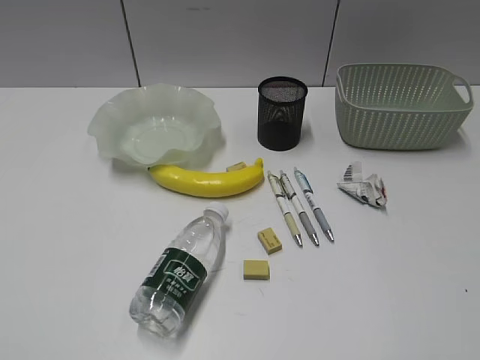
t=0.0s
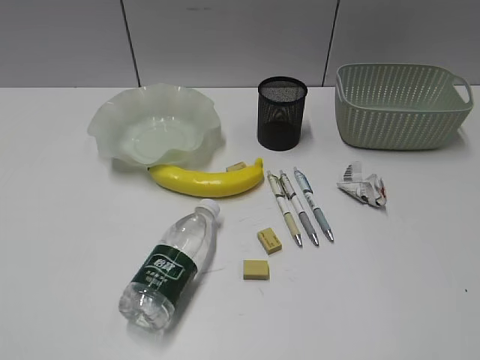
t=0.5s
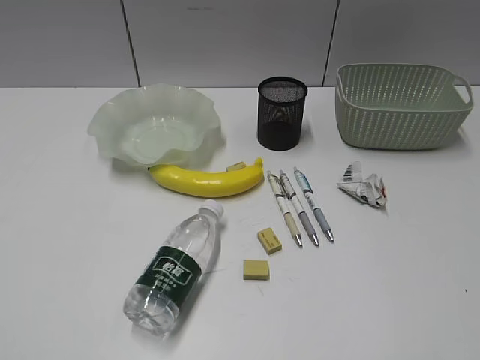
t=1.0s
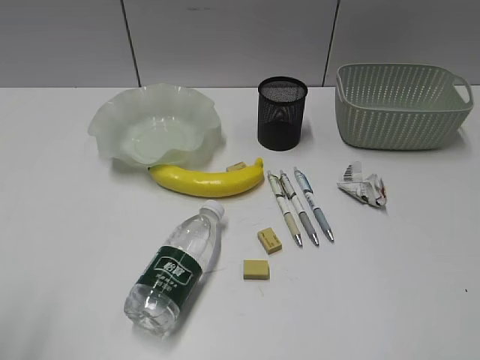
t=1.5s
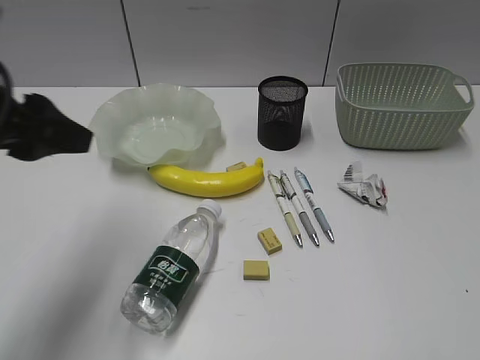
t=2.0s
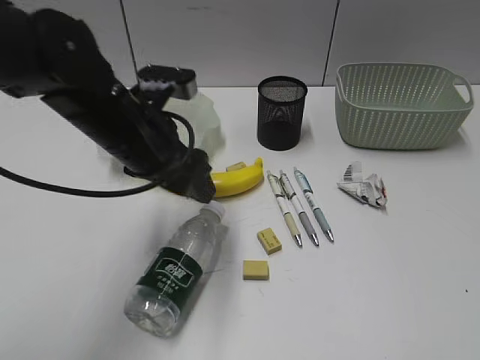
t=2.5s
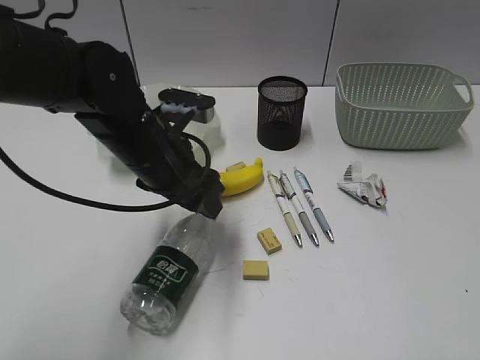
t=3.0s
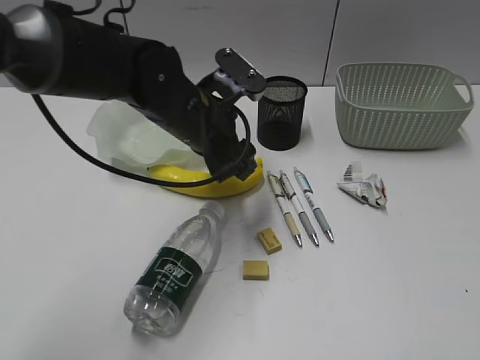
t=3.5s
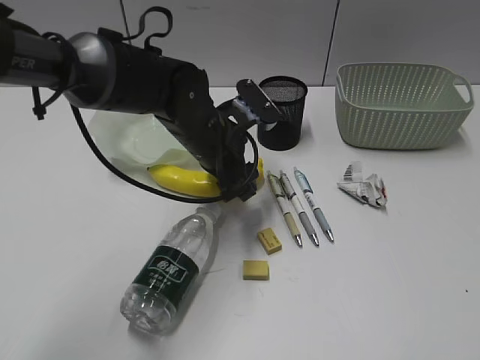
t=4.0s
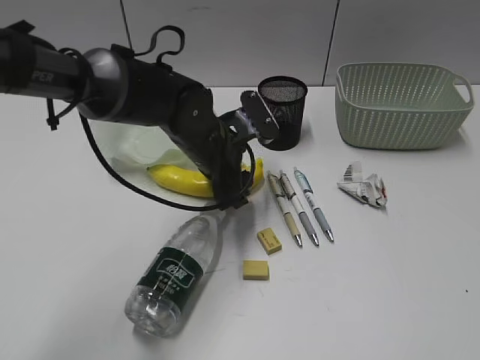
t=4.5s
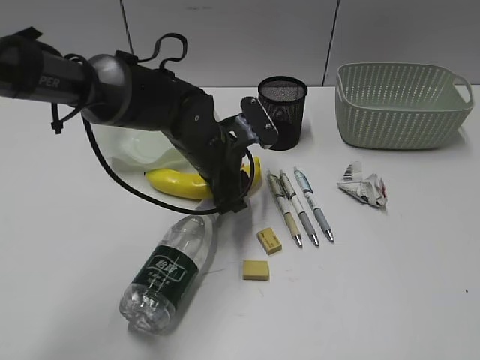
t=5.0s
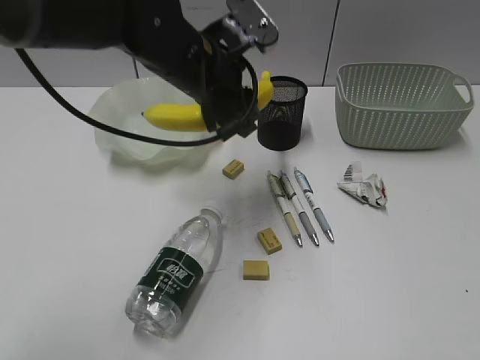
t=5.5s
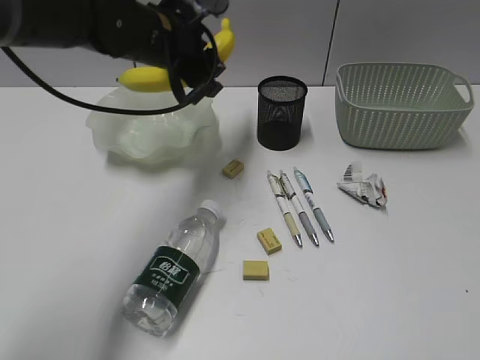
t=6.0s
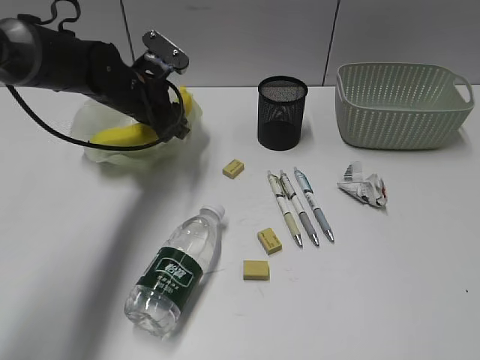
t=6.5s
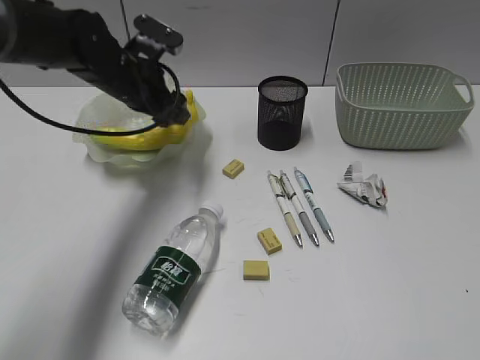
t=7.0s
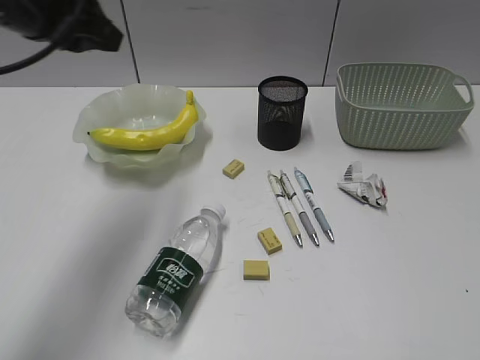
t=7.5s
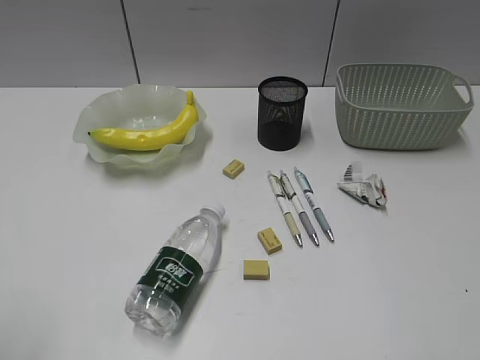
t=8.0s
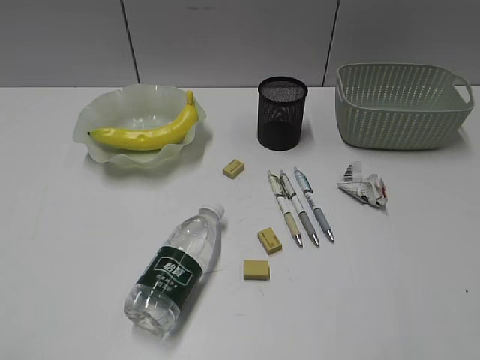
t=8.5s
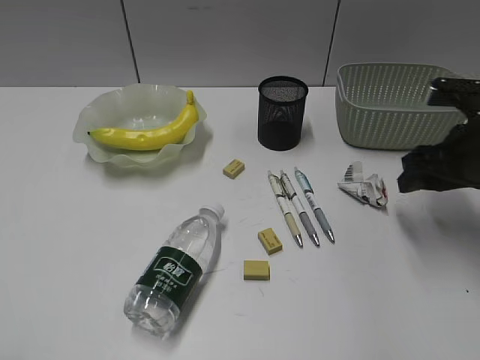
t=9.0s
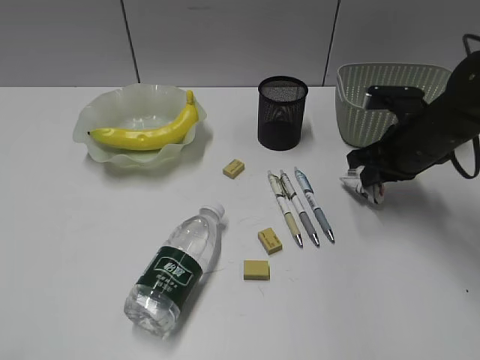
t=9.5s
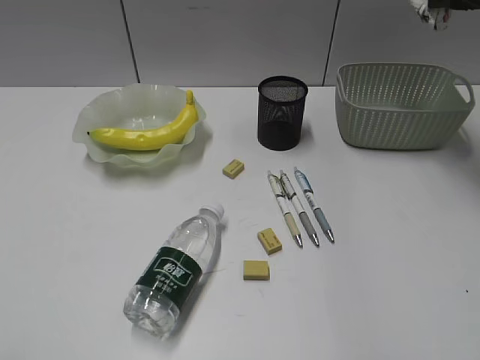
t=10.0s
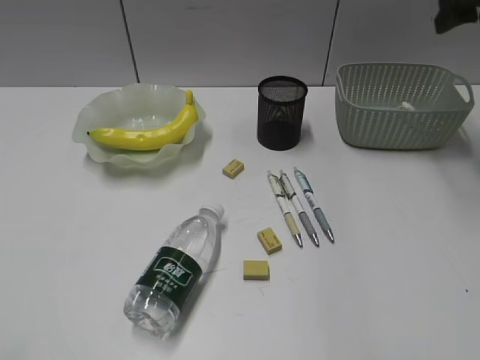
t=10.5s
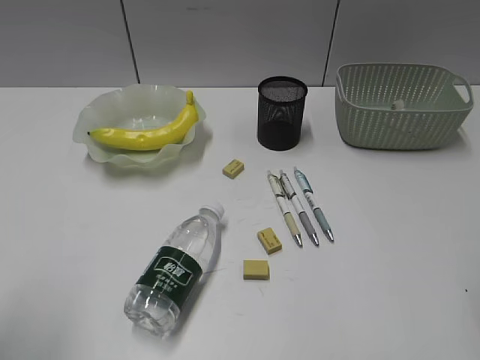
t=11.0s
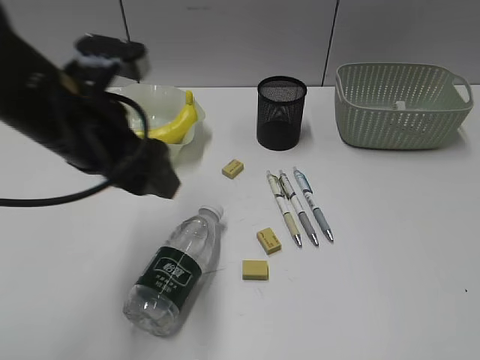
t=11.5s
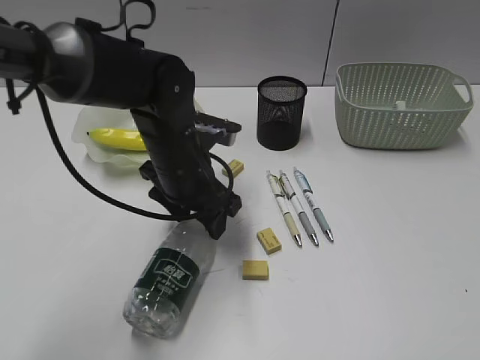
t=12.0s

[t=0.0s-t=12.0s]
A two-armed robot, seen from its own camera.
Step, t=1.5s to t=4.5s: Grasp the banana with left gripper.
Step, t=5.0s to t=7.0s: Place the banana in the plate with left gripper.
Step, t=7.5s to t=9.5s: Grasp the waste paper with right gripper.
t=2.0s to t=4.0s: The left gripper shifts approximately 25 cm to the right, downward and forward.
t=4.0s to t=6.0s: The left gripper is displaced upward by about 10 cm.
t=6.0s to t=8.0s: The left gripper is displaced backward and to the left by roughly 40 cm, and opens, then closes again.
t=8.0s to t=10.0s: The right gripper travels forward by about 40 cm, and closes up.
t=10.0s to t=12.0s: The left gripper shifts approximately 40 cm forward, to the right and downward, and opens up. The right gripper goes approximately 40 cm backward, and opens.

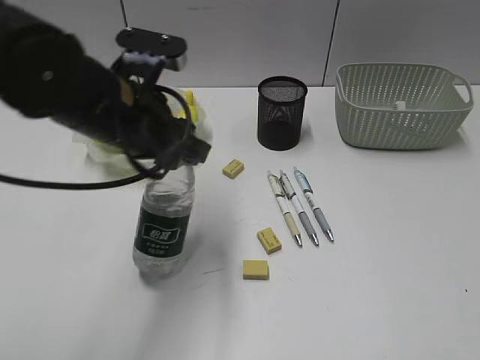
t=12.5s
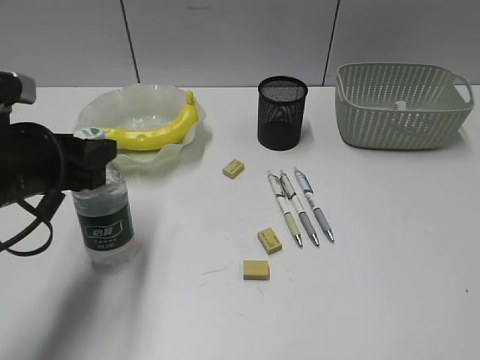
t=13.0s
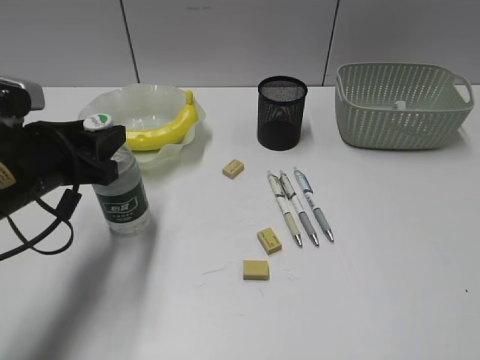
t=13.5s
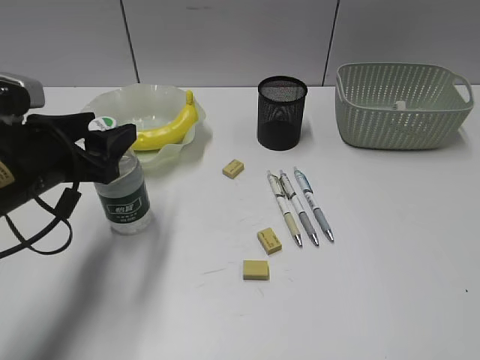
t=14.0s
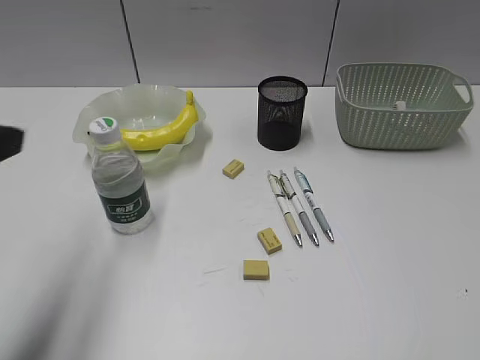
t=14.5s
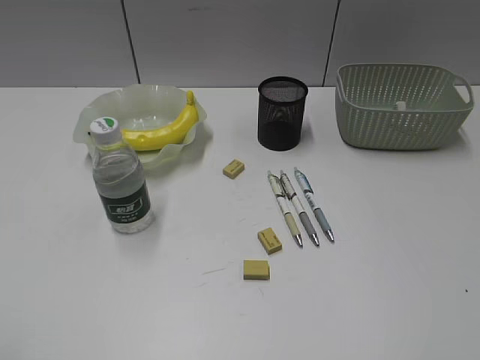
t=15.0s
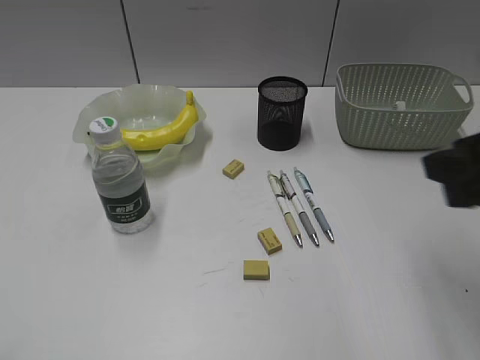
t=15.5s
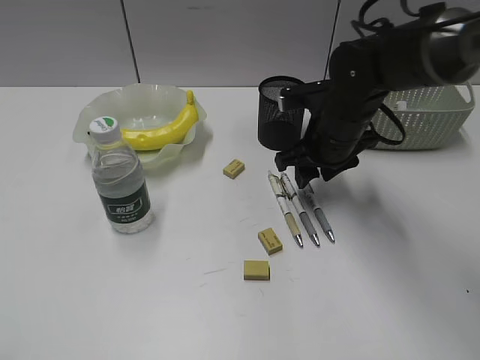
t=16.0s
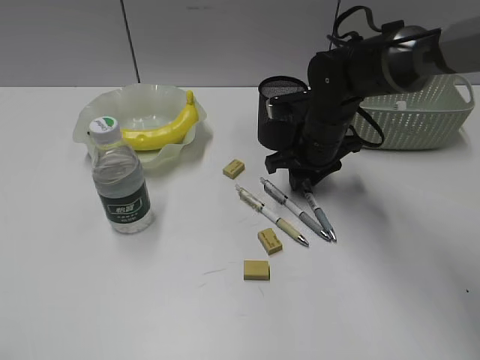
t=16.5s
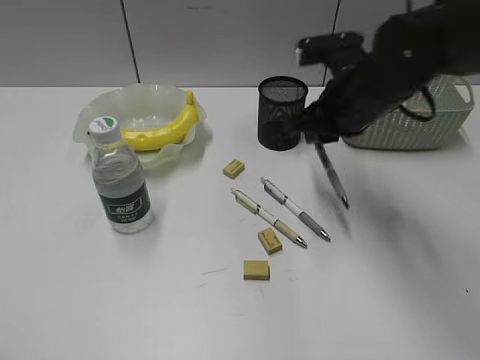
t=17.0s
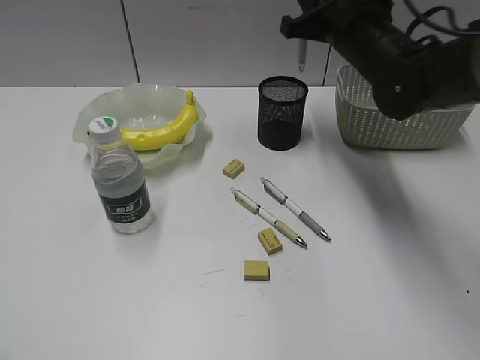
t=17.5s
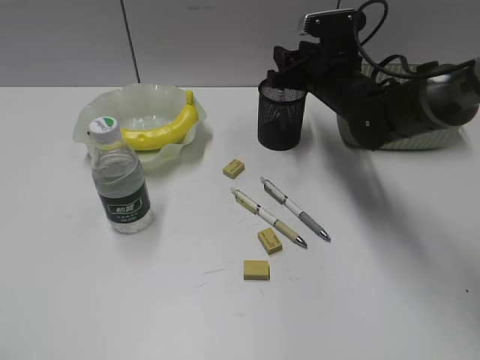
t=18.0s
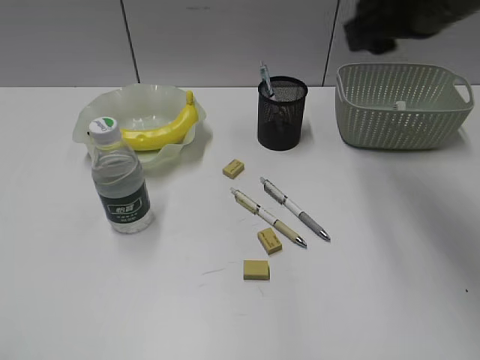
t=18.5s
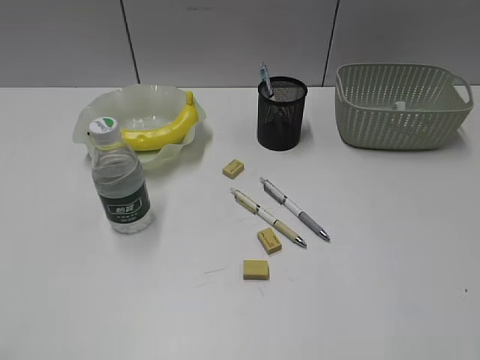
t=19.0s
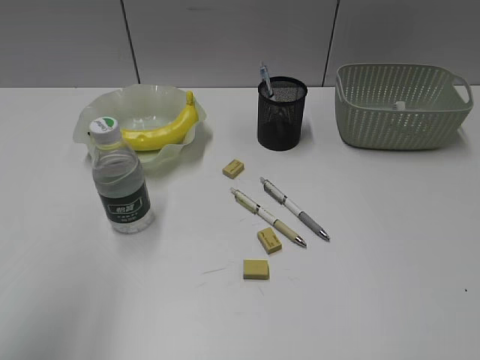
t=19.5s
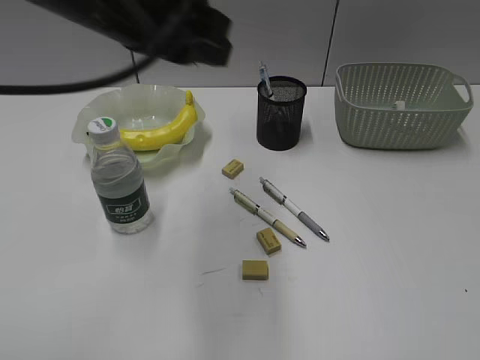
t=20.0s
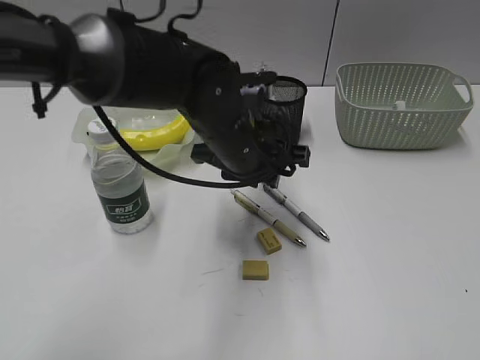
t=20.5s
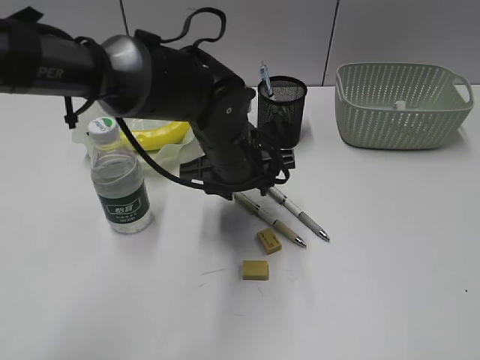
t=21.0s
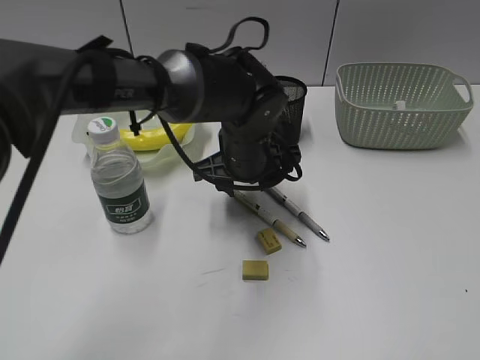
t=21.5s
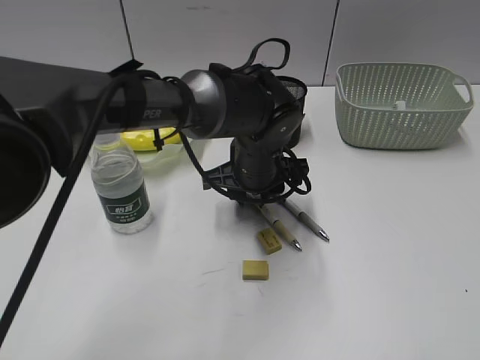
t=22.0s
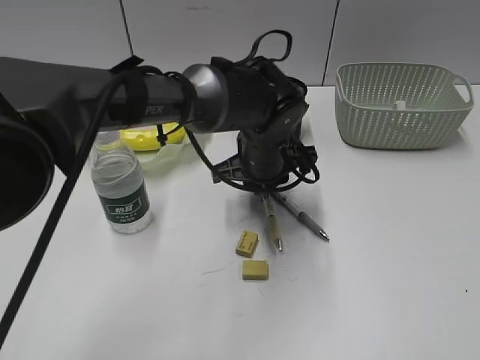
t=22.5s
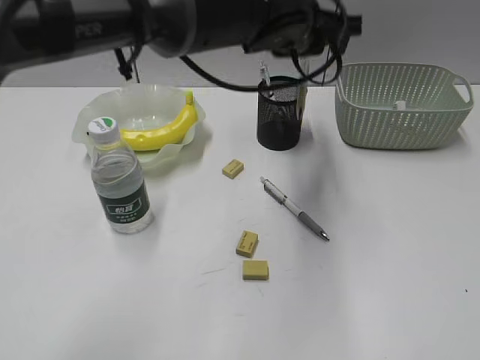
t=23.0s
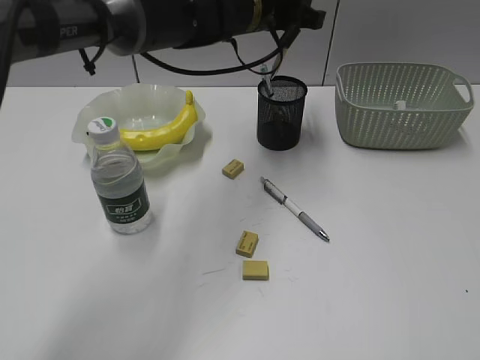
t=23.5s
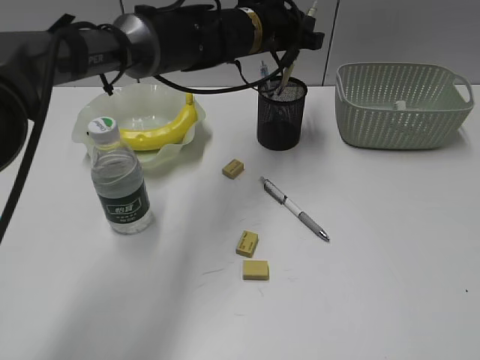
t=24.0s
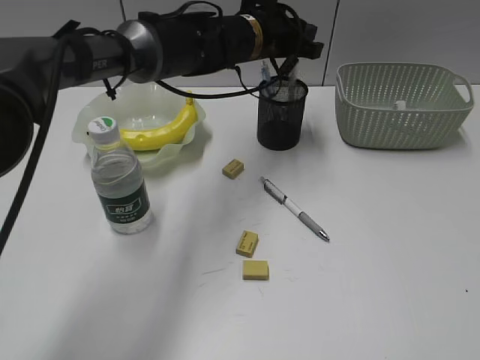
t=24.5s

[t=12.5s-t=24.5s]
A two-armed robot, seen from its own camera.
Step, t=12.5s to t=14.0s: Stand the bottle with left gripper.
Step, t=14.5s to t=16.5s: Grasp the blue pen with right gripper.
Step, t=17.0s to t=18.0s: Place the blue pen in pen holder with right gripper.
Step, t=18.5s to t=22.0s: Grasp the yellow pen with left gripper.
t=12.5s to t=14.5s: The left gripper heads to the left and backward, covering some 20 cm.
t=14.5s to t=16.5s: The right gripper travels forward, to the left and downward by about 50 cm. The left gripper moves backward and to the left, some 20 cm.
t=16.5s to t=18.5s: The right gripper goes up and down, approximately 20 cm each way, reversing 2 times, and opens.
t=18.5s to t=20.5s: The left gripper is displaced to the right and forward by roughly 50 cm, while the right gripper is displaced backward and to the right by approximately 35 cm, and closes up.
t=20.5s to t=22.5s: The left gripper heads downward, covering about 5 cm, and opens, then closes again.
t=22.5s to t=24.5s: The left gripper travels forward and upward by roughly 15 cm.

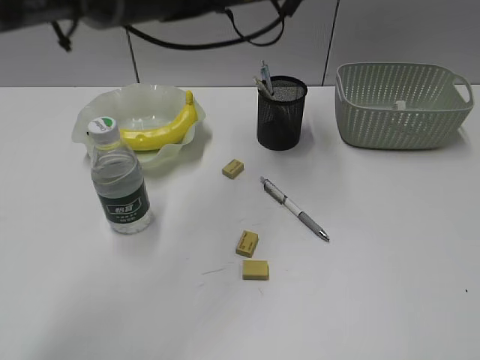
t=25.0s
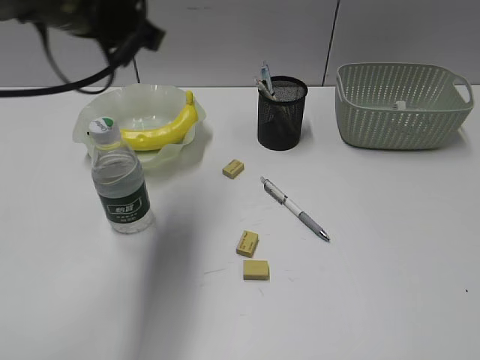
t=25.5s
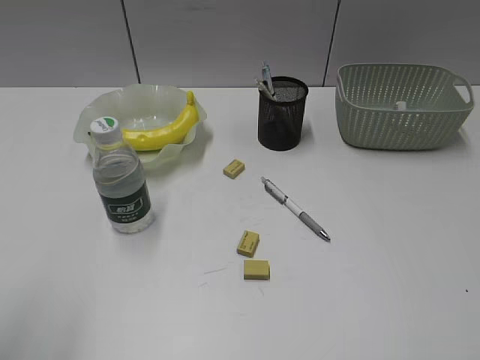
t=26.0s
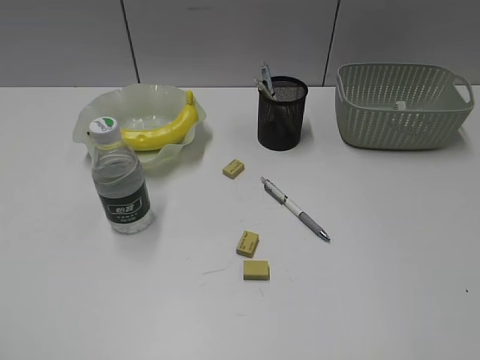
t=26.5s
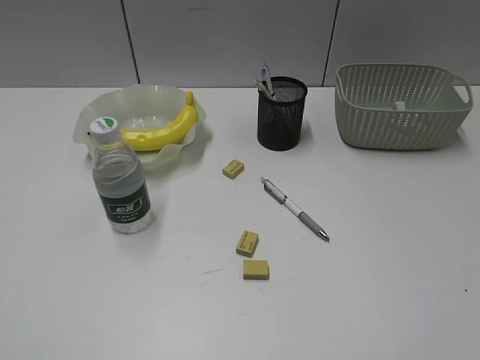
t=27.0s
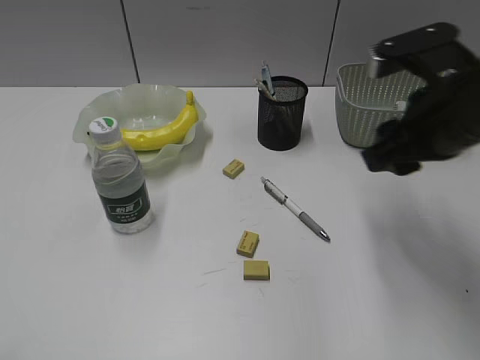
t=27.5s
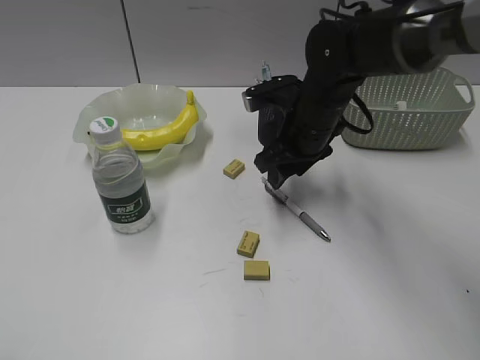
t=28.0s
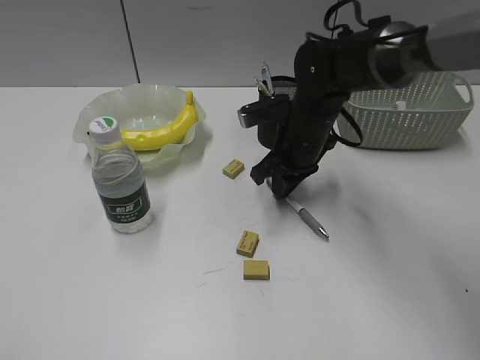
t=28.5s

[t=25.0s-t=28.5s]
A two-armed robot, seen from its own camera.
Step, t=25.0s to t=28.0s: Grasp the gray pen with right gripper.
t=25.0s to t=27.0s: The left gripper moves backward and to the left, some 60 cm, and opens.
t=27.0s to t=28.5s: The right gripper goes approximately 50 cm forward, to the left and downward, and closes up.
